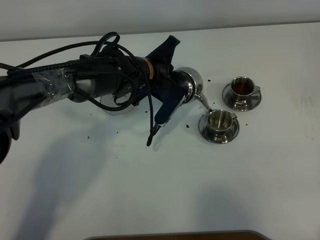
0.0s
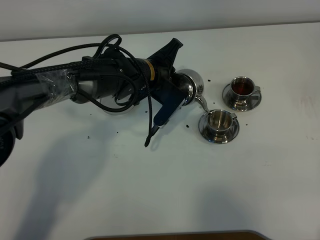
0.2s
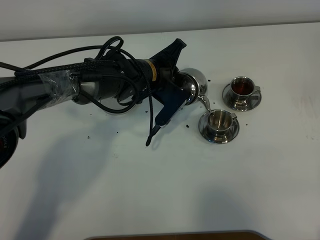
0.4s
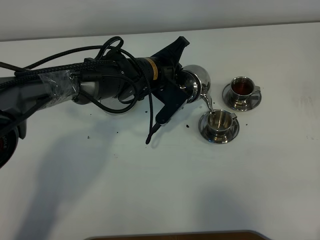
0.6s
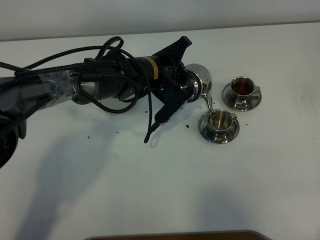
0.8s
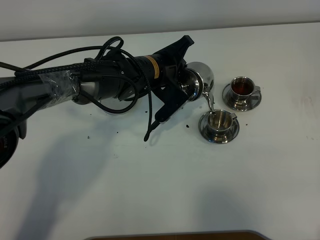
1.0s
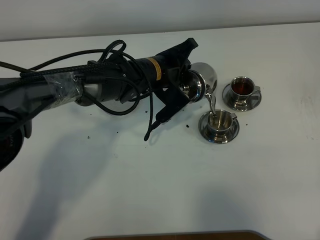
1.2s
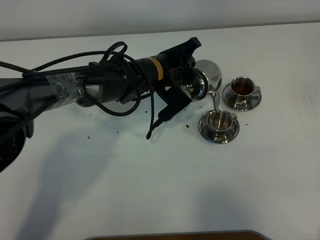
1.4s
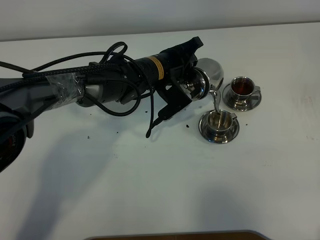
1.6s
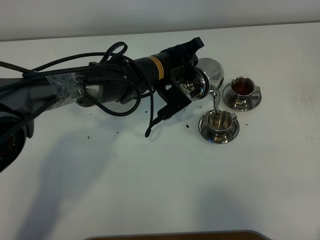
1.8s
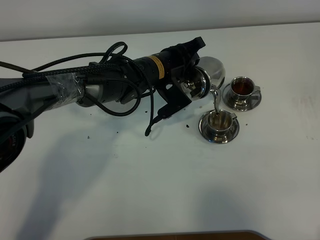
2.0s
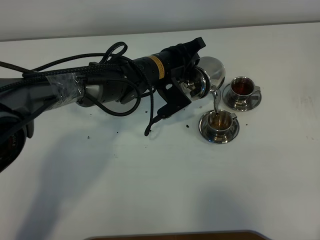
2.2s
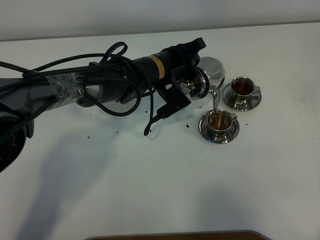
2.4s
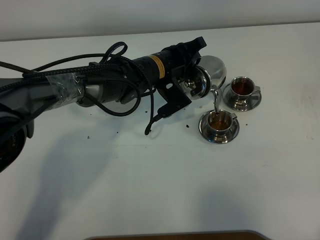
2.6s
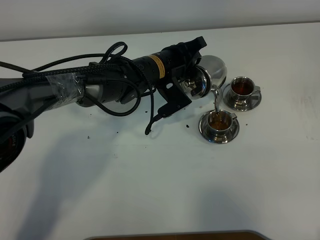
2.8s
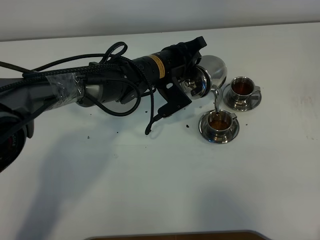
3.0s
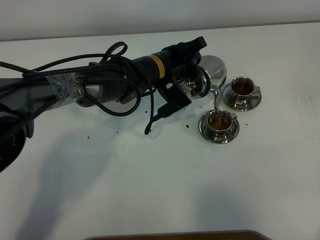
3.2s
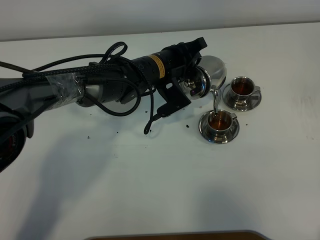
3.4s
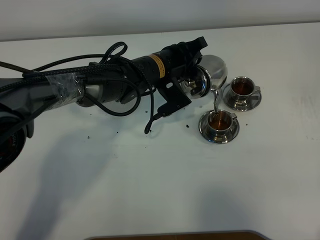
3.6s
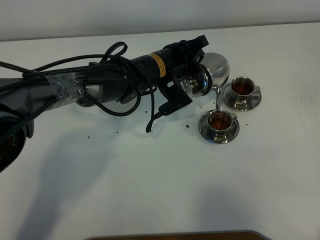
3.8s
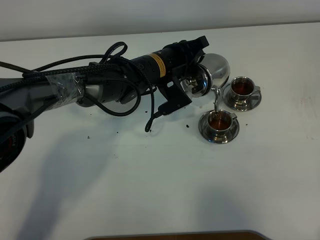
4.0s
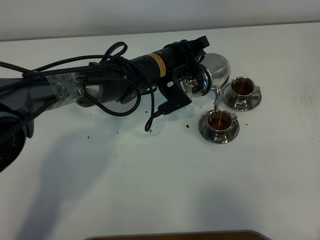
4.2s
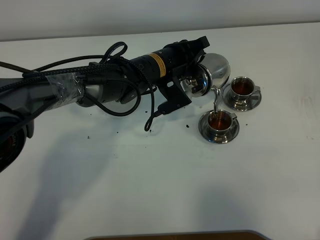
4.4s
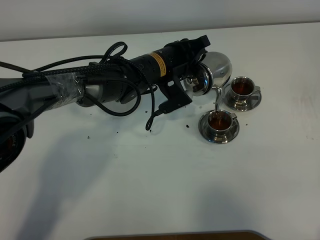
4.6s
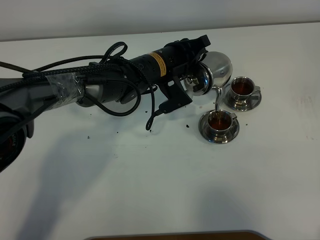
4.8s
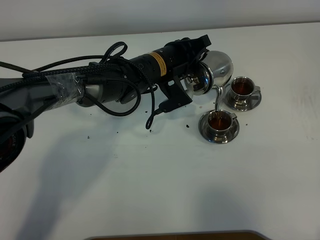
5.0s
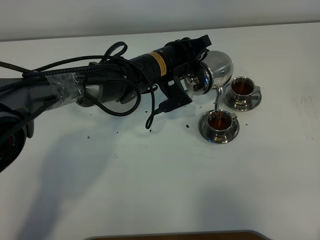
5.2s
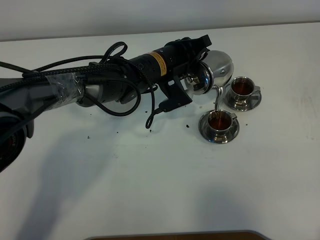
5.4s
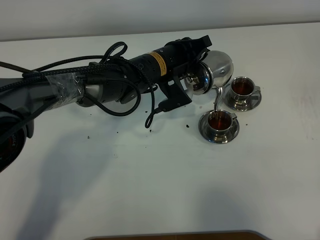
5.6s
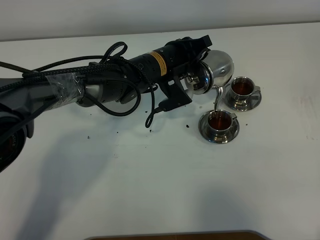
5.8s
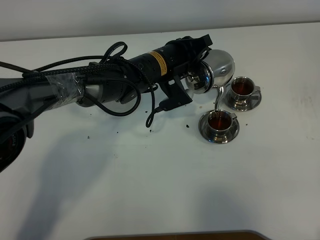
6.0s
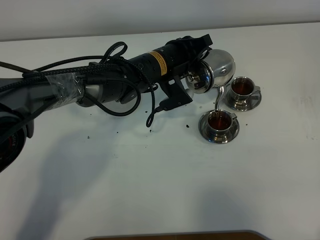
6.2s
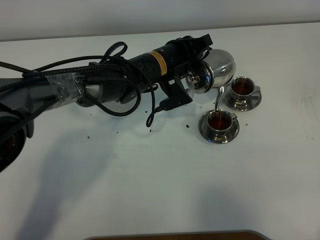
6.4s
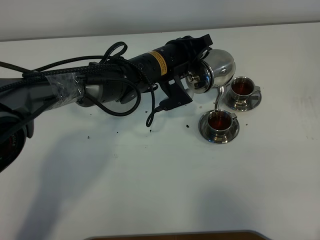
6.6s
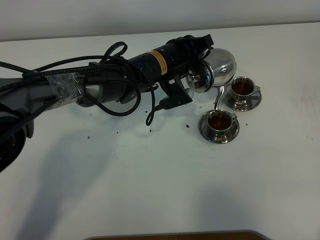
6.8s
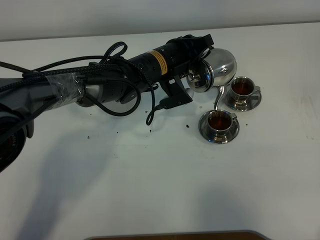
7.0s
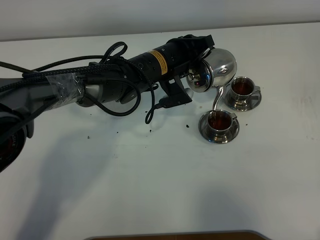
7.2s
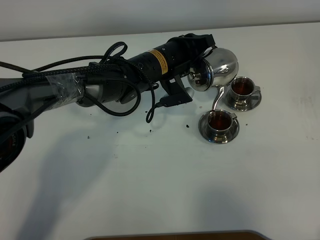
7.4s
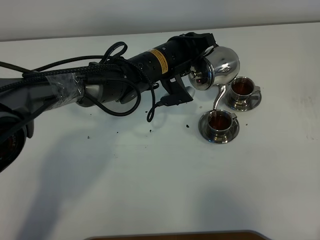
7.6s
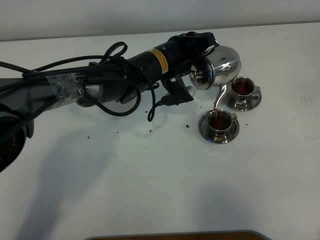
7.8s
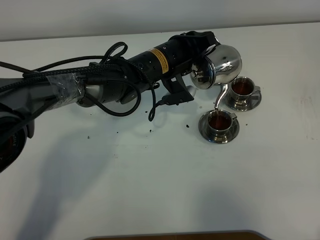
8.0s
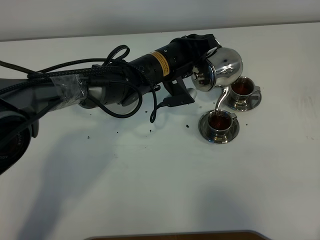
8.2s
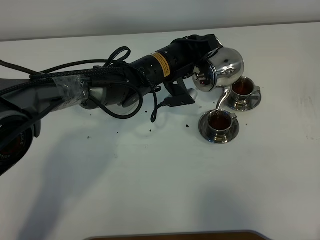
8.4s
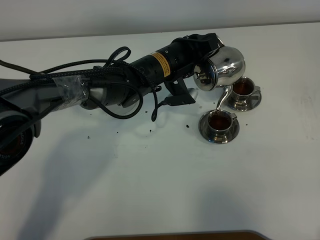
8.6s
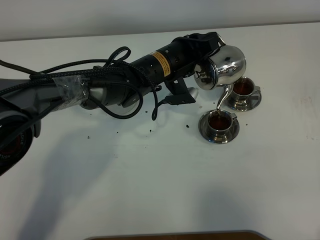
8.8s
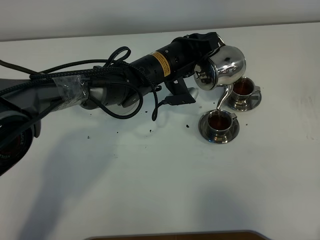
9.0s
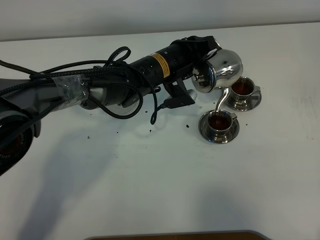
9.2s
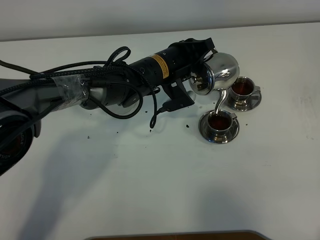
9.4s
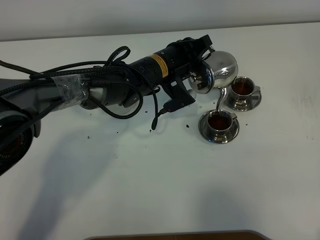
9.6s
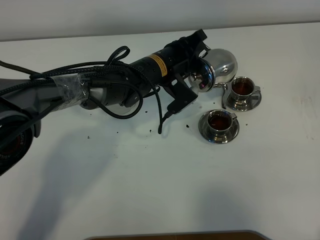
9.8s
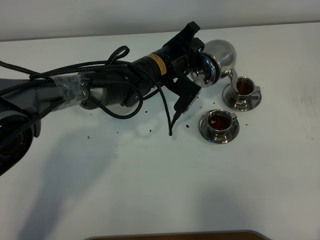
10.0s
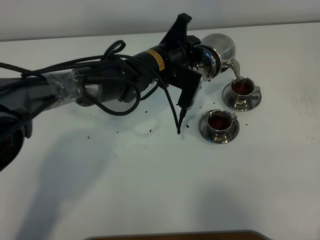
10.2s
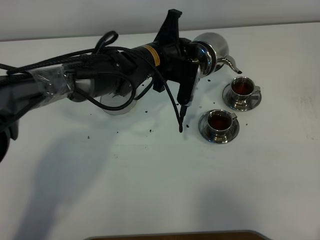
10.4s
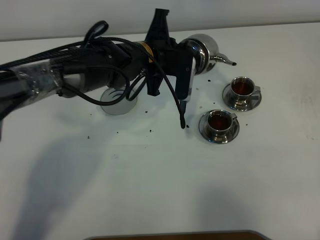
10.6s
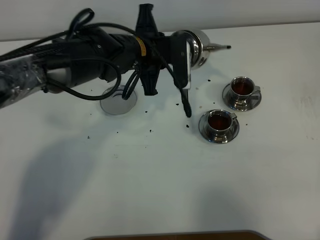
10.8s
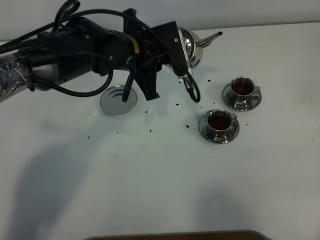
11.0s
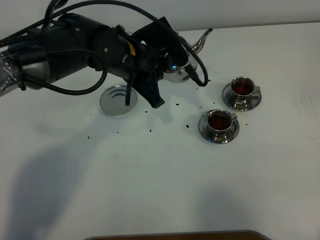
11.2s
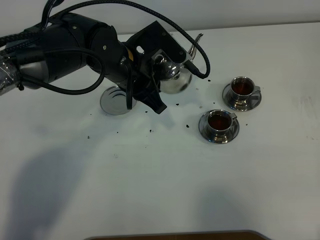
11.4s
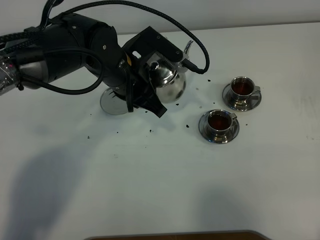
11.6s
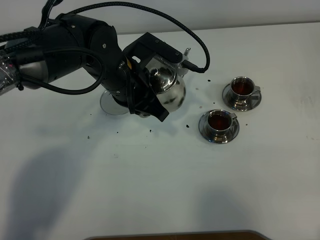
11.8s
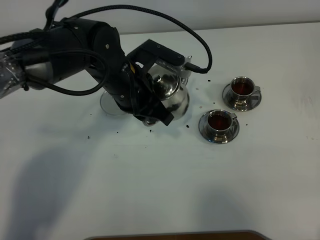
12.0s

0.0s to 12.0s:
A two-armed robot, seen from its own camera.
Task of the whole recording: grasp the stainless steel teapot and pour the tea into the two stainless steel teacups one by one, put the stainless steel teapot back in its original place.
Step, 0.0s to 10.0s: Pour tea into the teacup with the left gripper.
1.6s to 6.0s: The grippers move only a little.
6.0s to 9.0s: The grippers stay close to where they were, moving slightly.
10.4s to 12.0s: The left gripper is displaced backward by roughly 5 cm.

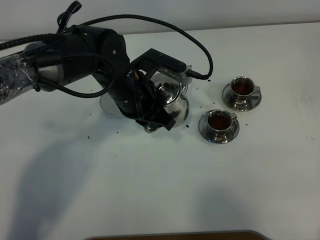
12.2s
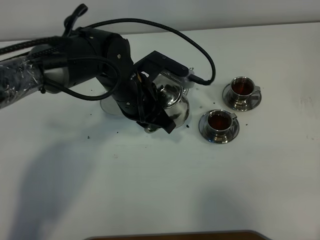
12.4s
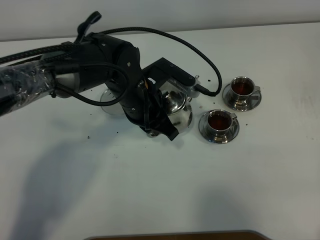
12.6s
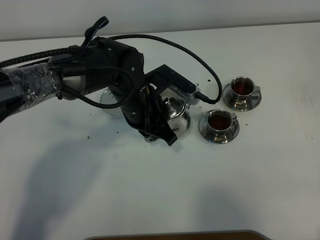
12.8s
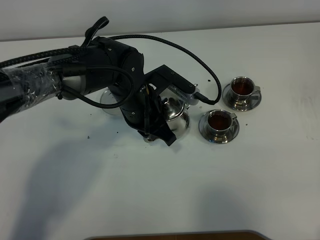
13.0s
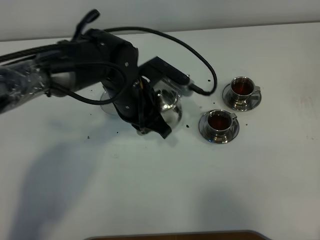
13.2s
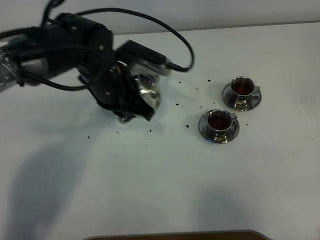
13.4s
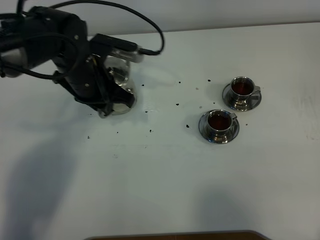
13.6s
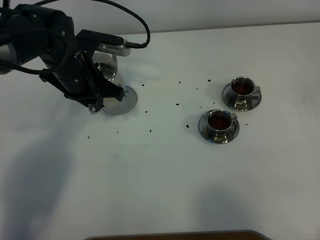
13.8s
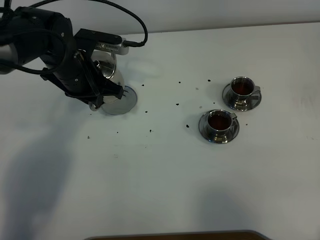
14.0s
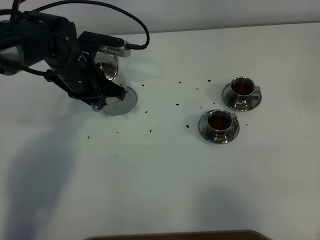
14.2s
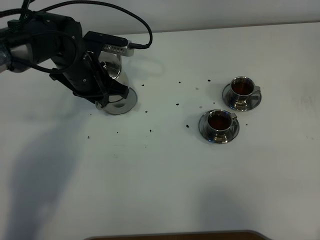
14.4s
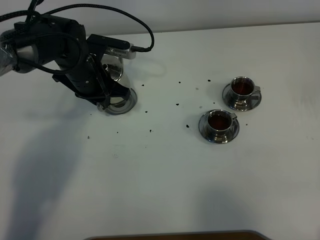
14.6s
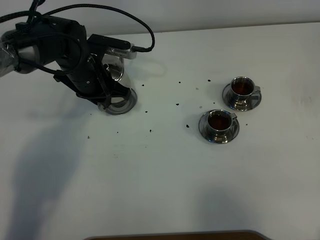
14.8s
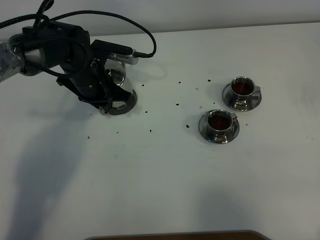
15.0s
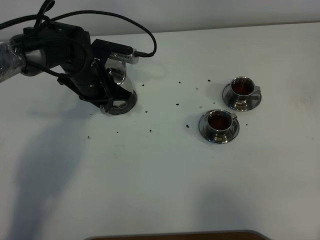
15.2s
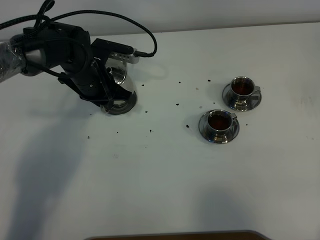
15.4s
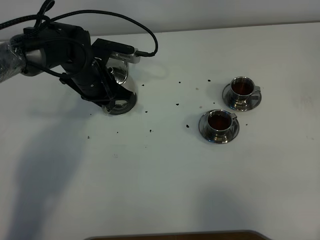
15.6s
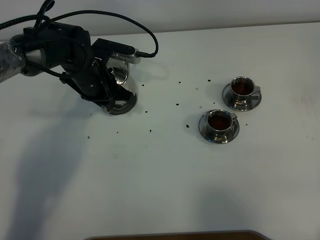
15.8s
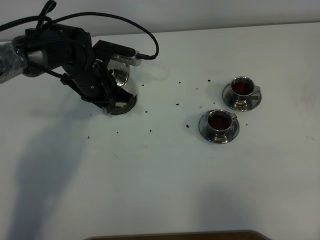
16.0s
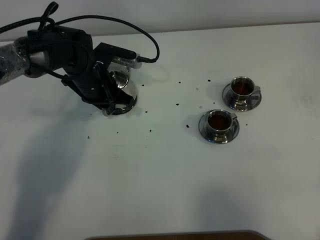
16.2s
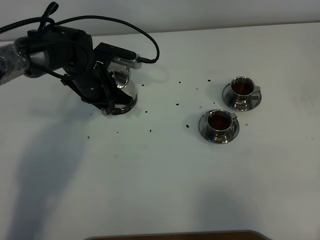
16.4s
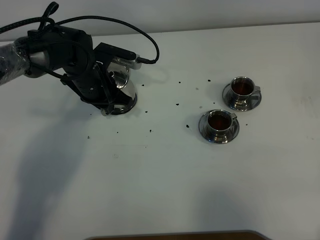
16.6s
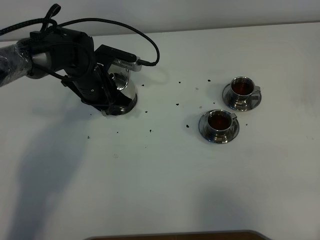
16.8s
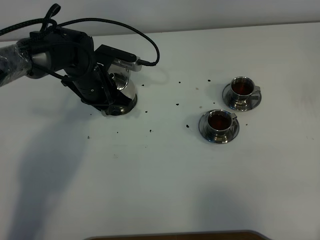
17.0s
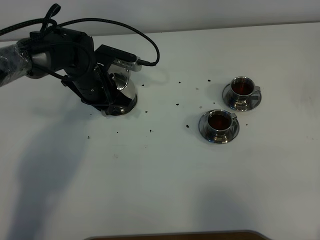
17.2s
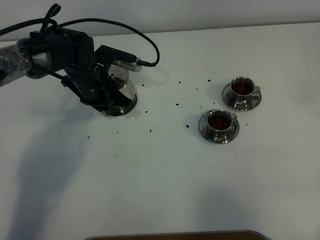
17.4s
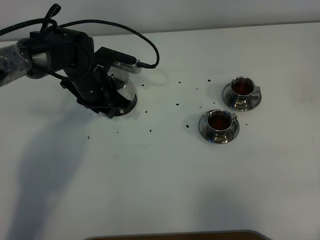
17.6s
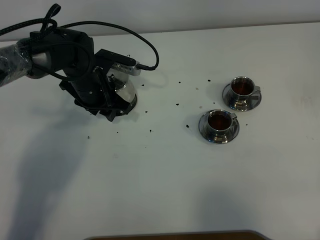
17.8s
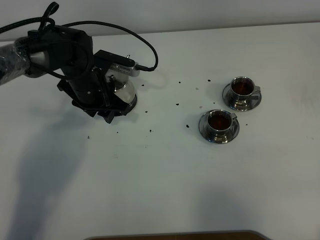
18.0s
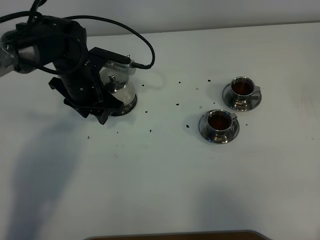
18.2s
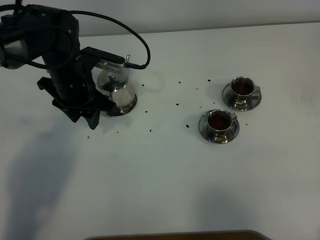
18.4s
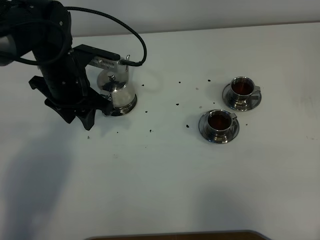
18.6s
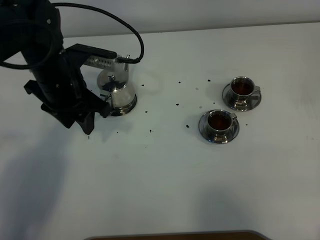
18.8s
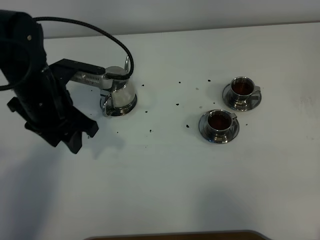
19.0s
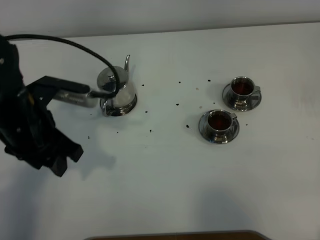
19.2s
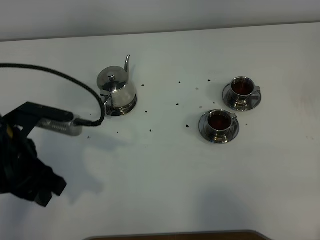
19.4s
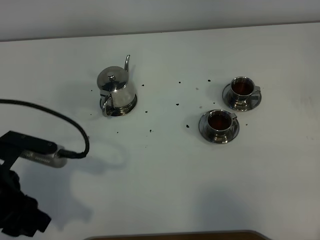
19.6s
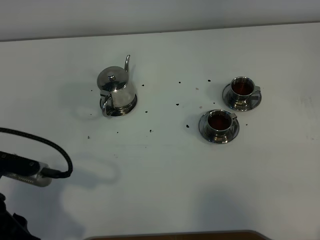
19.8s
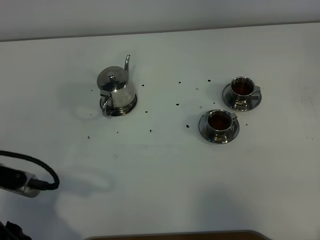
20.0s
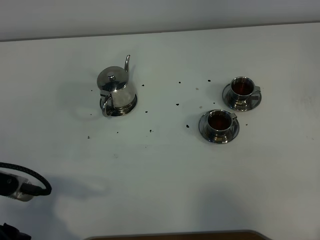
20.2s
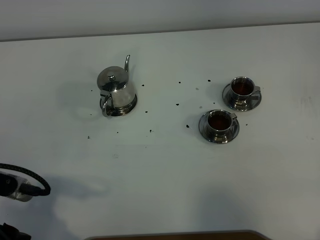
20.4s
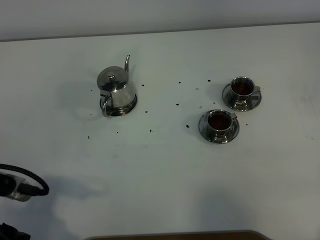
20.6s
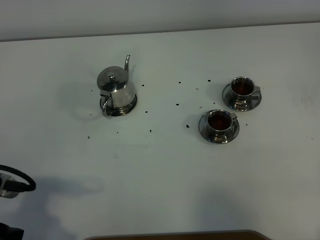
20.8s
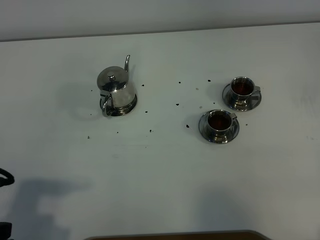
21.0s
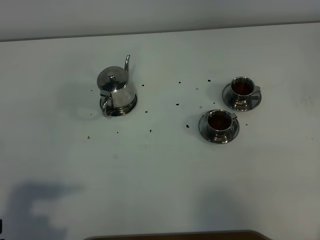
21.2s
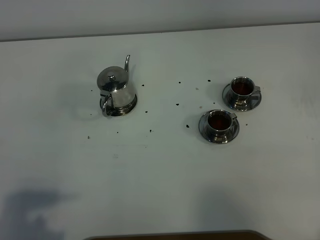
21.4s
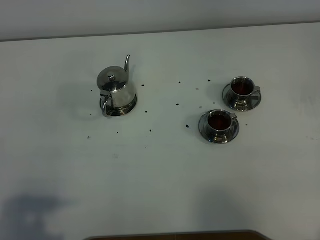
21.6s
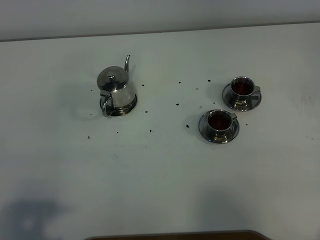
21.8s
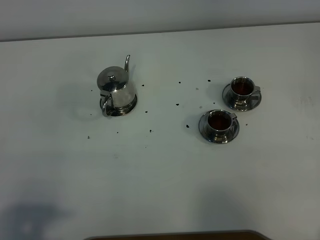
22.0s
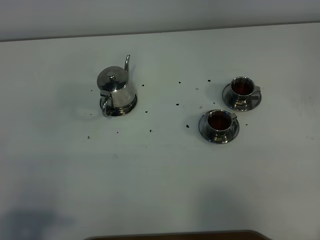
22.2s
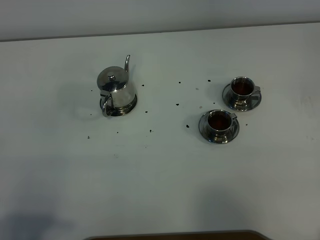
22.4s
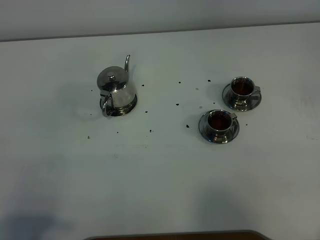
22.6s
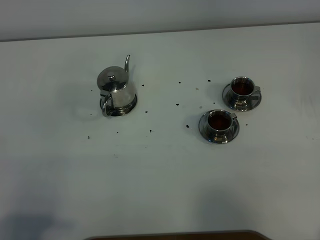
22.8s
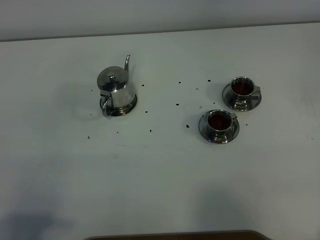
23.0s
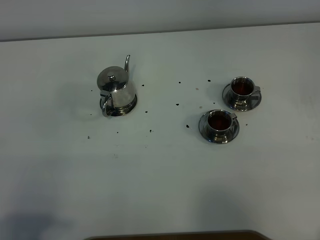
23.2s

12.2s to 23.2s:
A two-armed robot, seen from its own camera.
Task of the whole recording: grasp the stainless steel teapot and pour the tea into the two stainless steel teacups one by one, put the stainless steel teapot back in its original place.
12.2s to 13.8s: The left gripper heads to the left, covering some 10 cm.
13.8s to 15.4s: The left gripper heads downward, covering some 5 cm.
15.4s to 17.0s: Neither gripper changes place.
17.0s to 18.4s: The left gripper moves upward, roughly 5 cm, and opens up.
18.4s to 20.0s: The left gripper heads backward, covering approximately 25 cm.
20.0s to 21.6s: The left gripper moves backward, roughly 5 cm.
